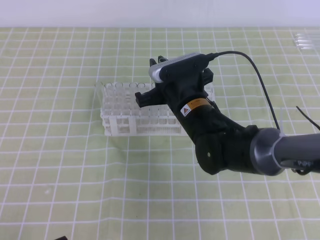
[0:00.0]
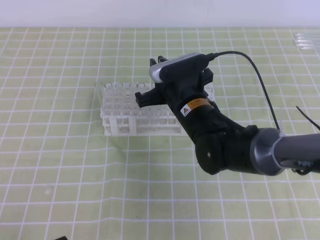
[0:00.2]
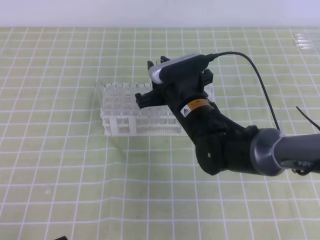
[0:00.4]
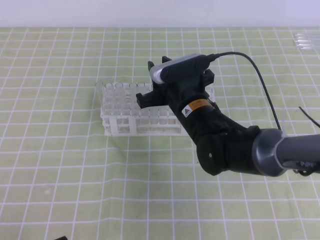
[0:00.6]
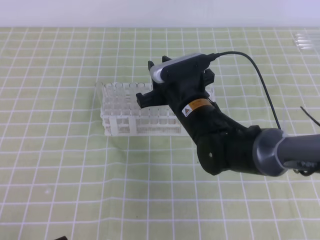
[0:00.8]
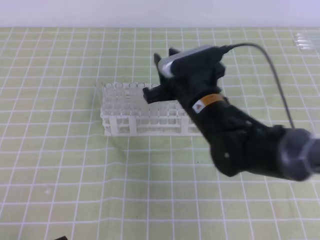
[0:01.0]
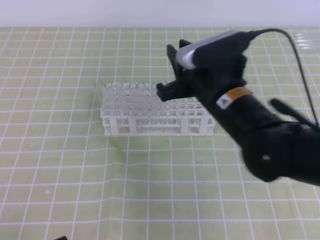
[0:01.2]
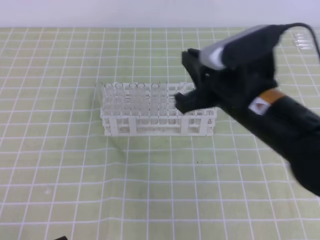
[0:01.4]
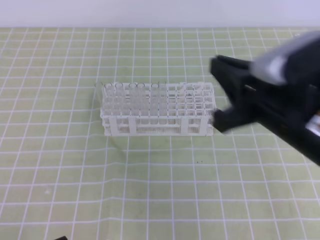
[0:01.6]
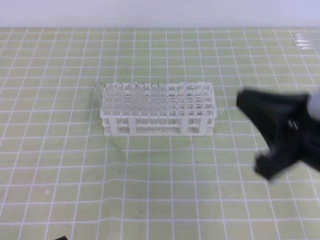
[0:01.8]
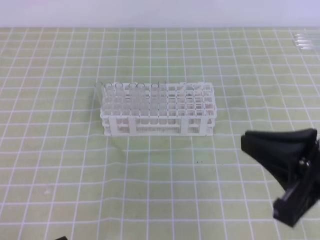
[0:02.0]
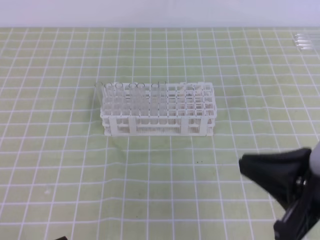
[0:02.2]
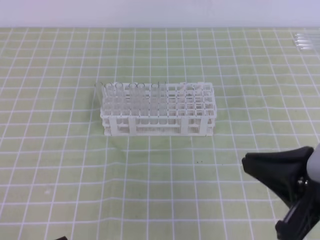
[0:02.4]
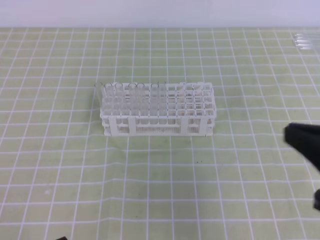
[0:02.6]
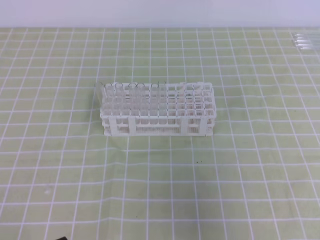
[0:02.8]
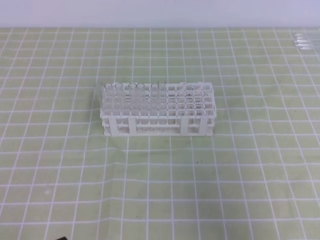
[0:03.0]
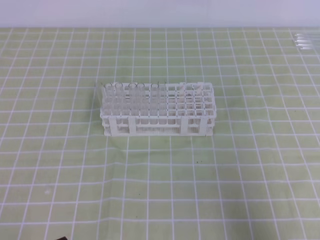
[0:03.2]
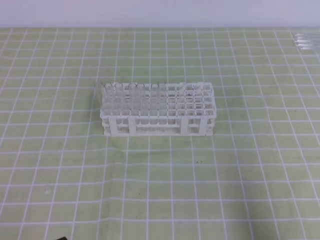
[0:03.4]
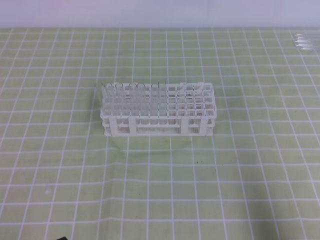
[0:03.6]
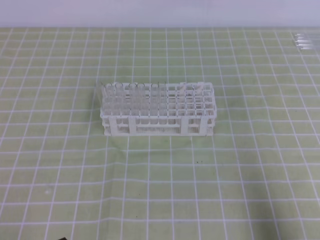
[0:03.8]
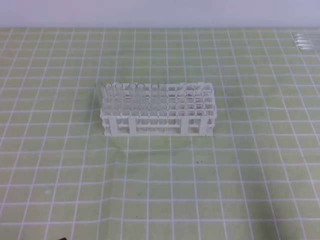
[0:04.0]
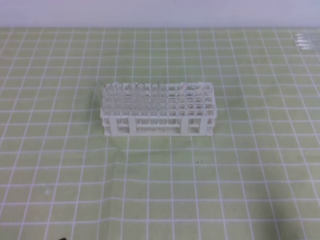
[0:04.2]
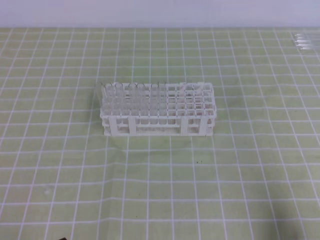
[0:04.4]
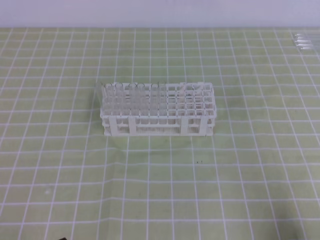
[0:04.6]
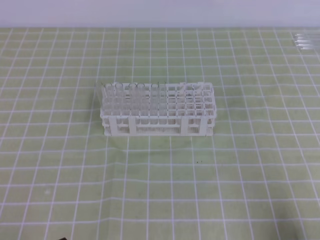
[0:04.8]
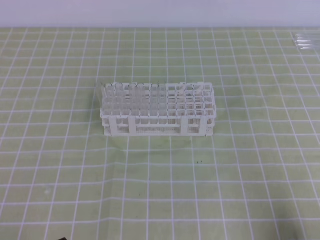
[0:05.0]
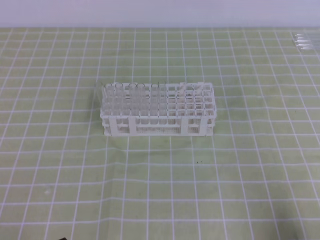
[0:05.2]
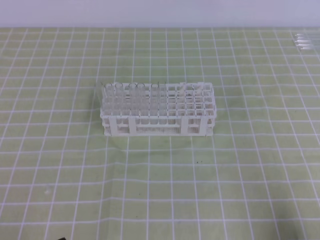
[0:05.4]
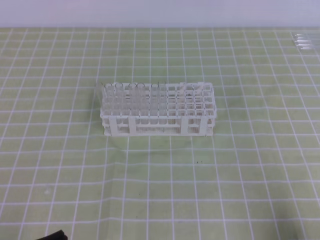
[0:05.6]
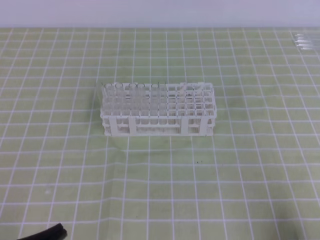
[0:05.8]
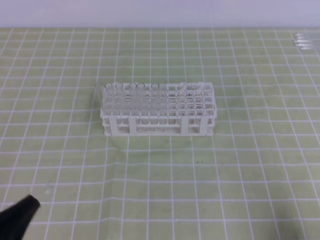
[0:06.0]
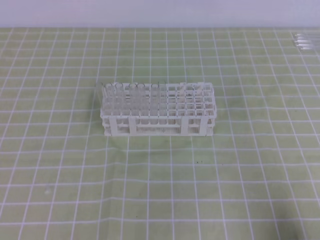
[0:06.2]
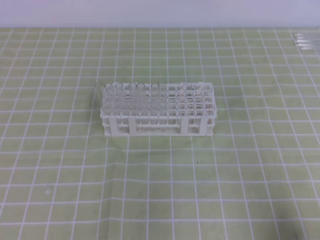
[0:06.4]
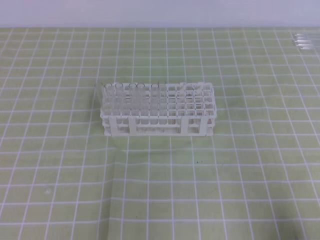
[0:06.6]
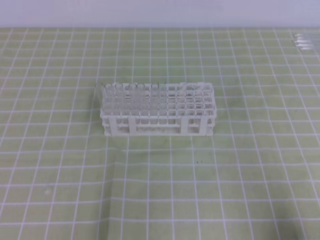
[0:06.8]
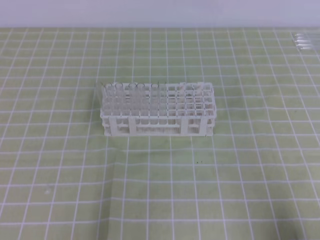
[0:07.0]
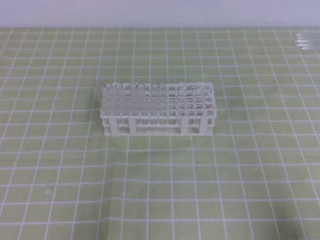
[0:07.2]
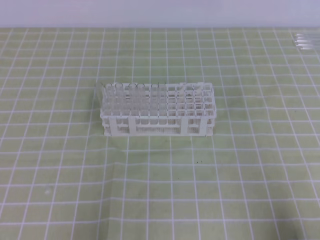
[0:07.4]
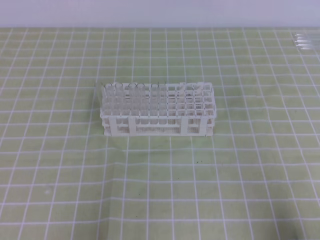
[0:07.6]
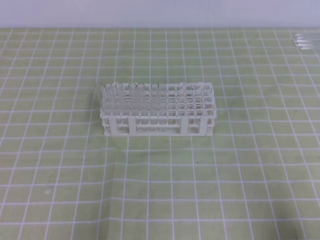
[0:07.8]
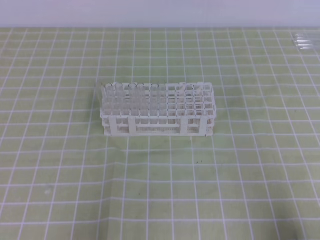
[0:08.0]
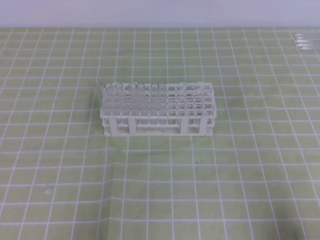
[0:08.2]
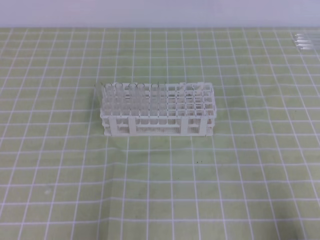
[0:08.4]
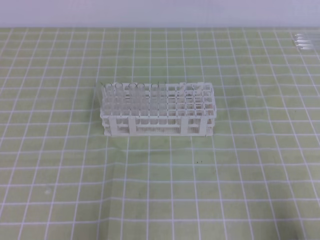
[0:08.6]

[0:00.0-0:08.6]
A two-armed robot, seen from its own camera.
0:00.0 to 0:01.4: The right gripper is displaced upward, backward and to the right by about 15 cm.
0:01.4 to 0:02.8: The right gripper moves to the right and backward, about 20 cm.
0:02.8 to 0:04.4: The right gripper moves downward, approximately 15 cm.
0:05.8 to 0:07.2: The left gripper ends up roughly 5 cm from where it was.
0:07.2 to 0:08.6: Both grippers stay about where they are.

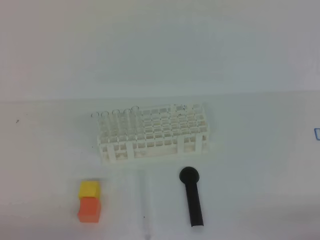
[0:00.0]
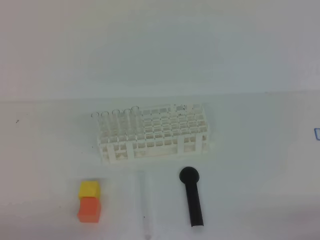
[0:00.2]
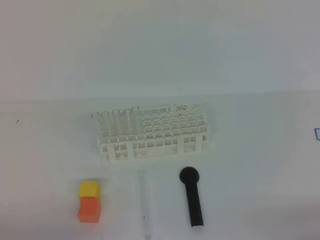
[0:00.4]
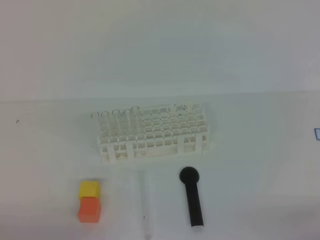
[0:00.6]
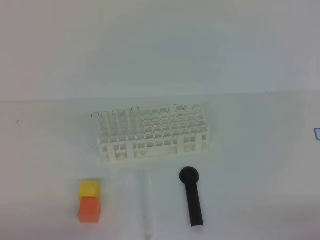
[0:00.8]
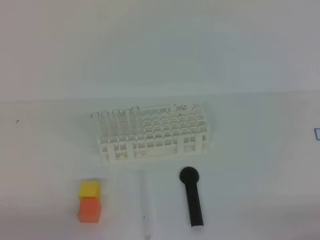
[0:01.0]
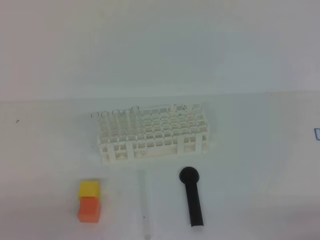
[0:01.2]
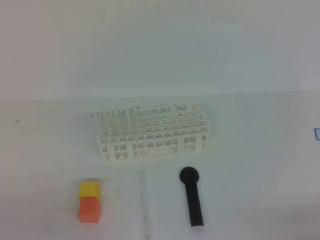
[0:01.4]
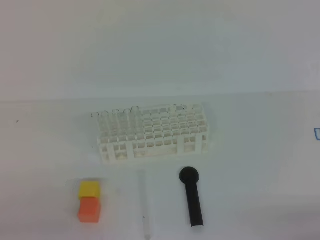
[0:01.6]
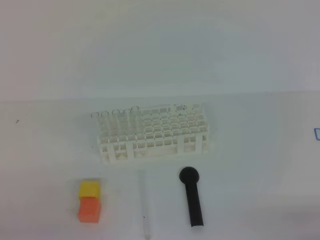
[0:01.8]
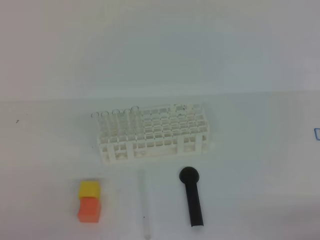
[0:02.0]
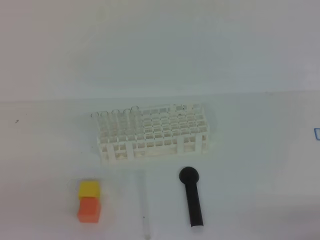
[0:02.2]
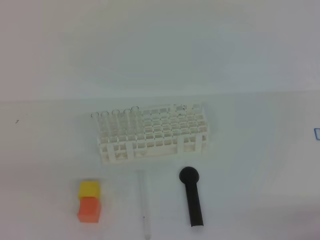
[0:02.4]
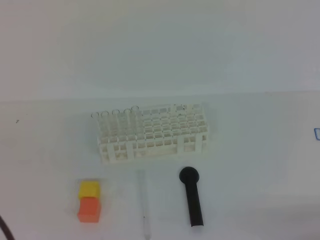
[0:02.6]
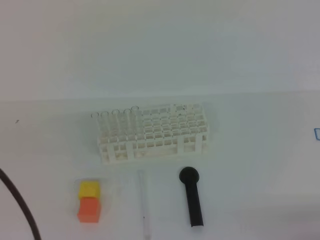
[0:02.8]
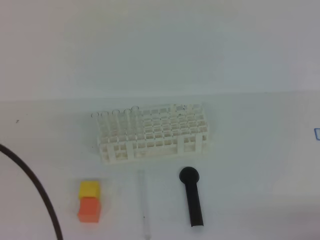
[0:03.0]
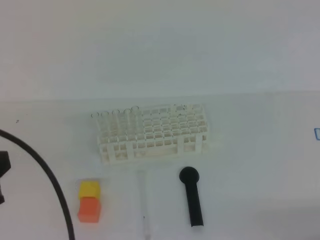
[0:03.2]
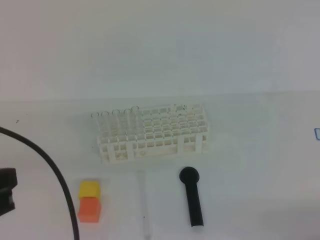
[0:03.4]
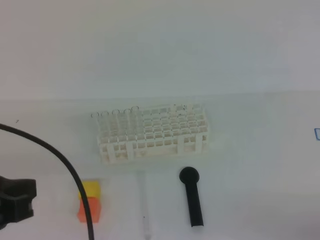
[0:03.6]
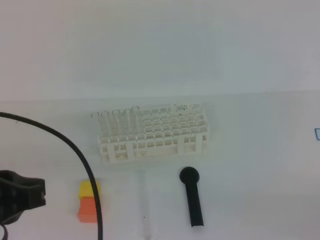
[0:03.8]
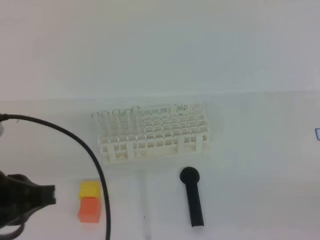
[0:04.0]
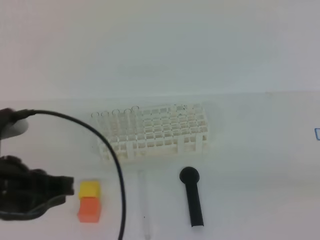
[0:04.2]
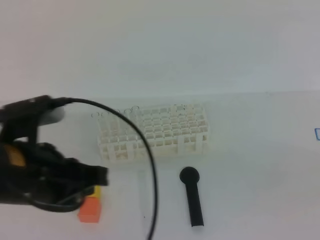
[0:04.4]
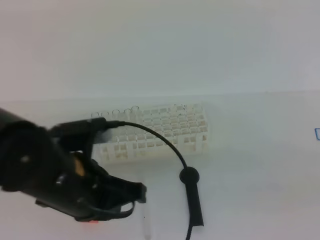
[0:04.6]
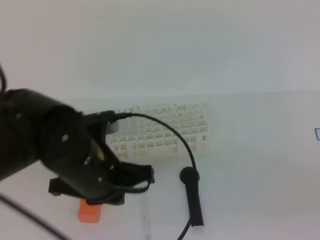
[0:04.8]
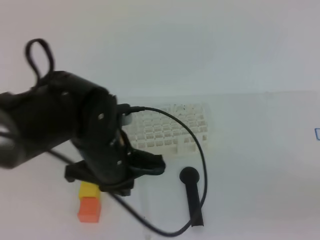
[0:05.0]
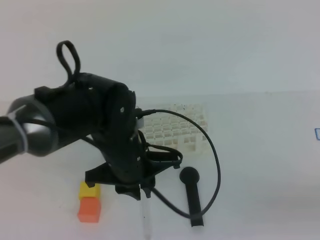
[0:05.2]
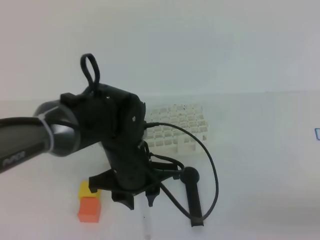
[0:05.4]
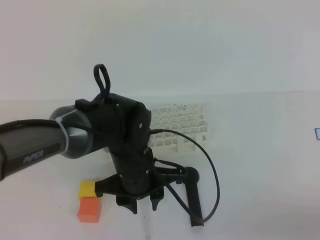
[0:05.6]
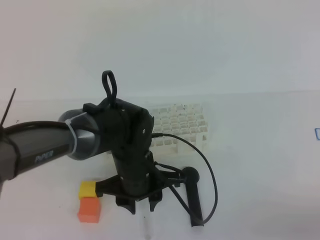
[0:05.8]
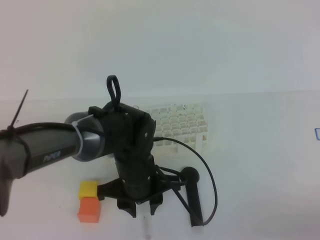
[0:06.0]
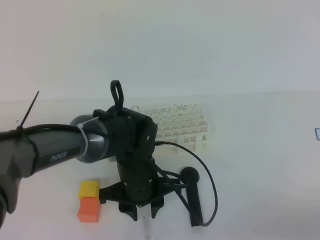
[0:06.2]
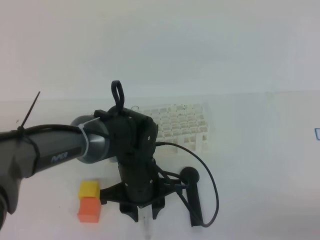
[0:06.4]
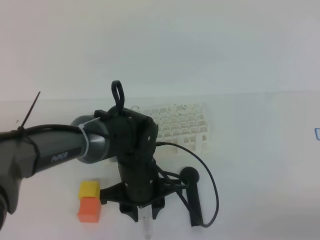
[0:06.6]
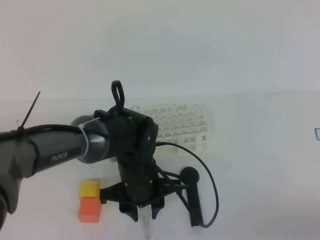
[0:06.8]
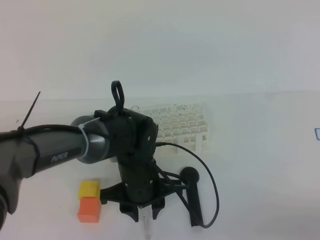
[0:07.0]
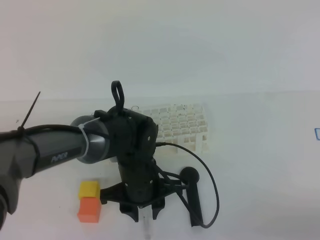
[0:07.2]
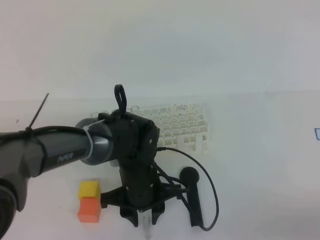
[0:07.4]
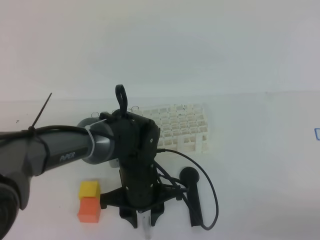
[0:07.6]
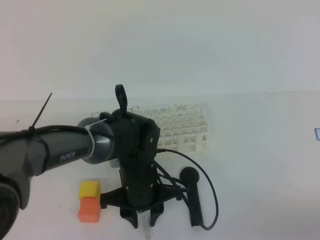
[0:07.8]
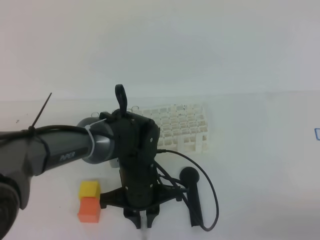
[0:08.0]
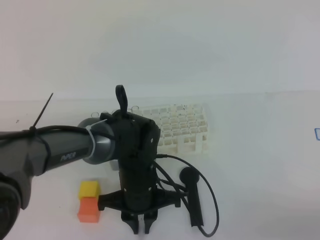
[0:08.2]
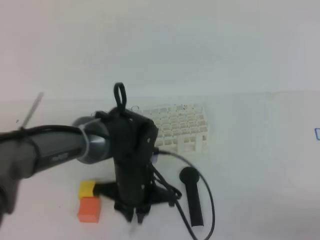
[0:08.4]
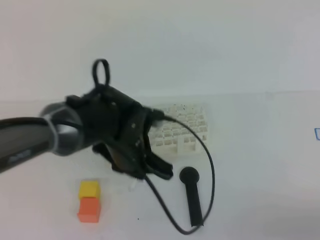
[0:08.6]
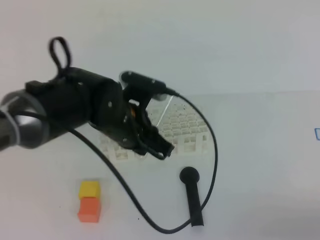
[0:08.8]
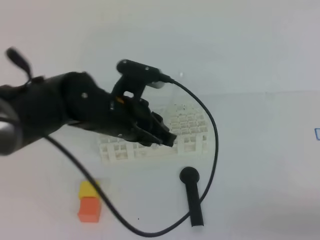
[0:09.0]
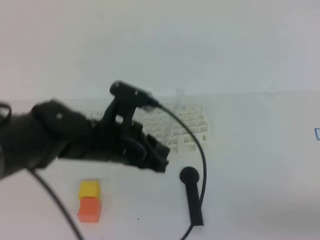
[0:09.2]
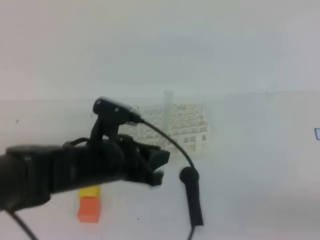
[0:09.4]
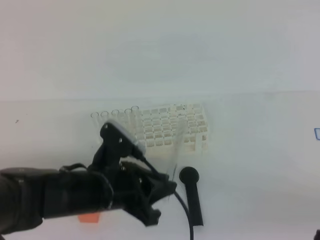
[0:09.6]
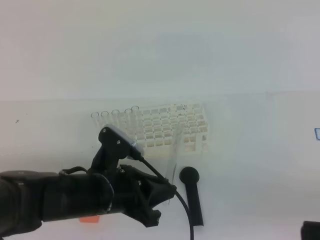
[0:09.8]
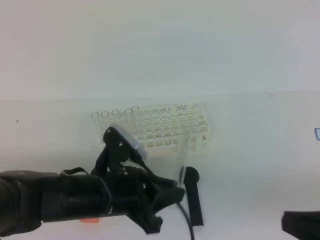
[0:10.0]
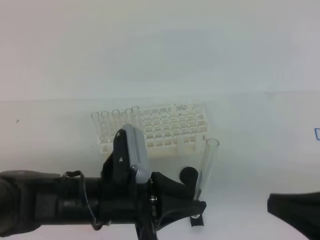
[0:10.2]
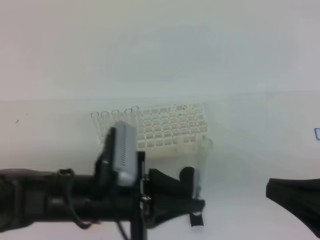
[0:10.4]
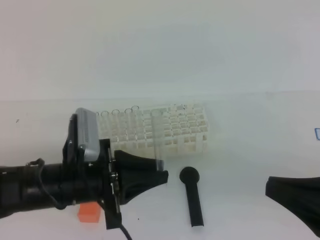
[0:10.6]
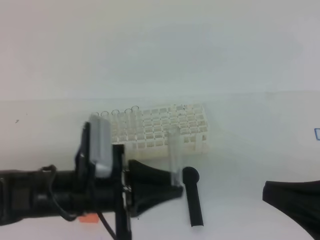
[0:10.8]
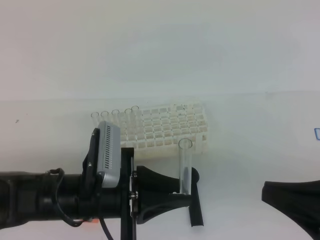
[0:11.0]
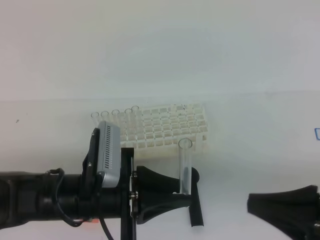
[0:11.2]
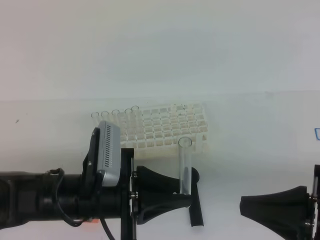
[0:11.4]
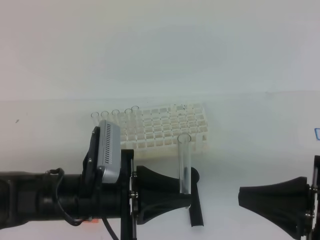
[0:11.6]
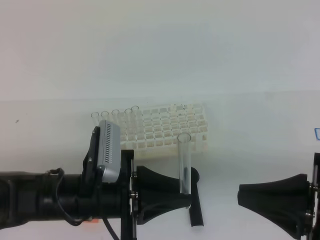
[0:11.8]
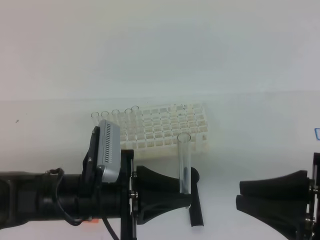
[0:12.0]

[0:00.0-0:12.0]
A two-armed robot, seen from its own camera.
0:01.6 to 0:03.0: The left gripper is displaced upward by approximately 15 cm.
0:03.0 to 0:04.4: The right gripper goes roughly 10 cm upward. The left gripper goes about 15 cm forward, to the right and downward.
0:04.4 to 0:06.0: The right gripper travels to the left by roughly 5 cm. The left gripper is displaced to the right, downward and forward by about 20 cm, and opens.
0:06.0 to 0:07.6: The grippers stay close to where they were, moving slightly.
0:07.6 to 0:09.0: The left gripper heads upward, covering some 10 cm, and closes its fingers.
0:09.0 to 0:10.4: The left gripper travels backward by roughly 10 cm. Meanwhile the right gripper is displaced forward by approximately 5 cm.
0:10.4 to 0:12.0: The grippers stay close to where they were, moving slightly.

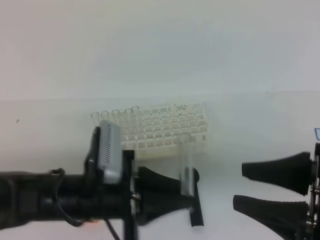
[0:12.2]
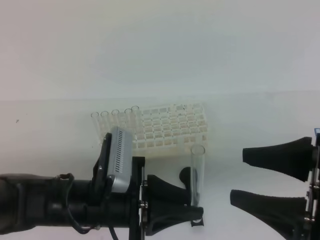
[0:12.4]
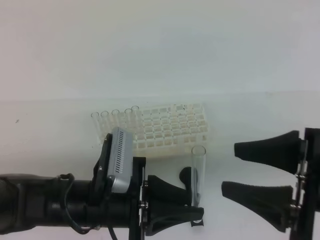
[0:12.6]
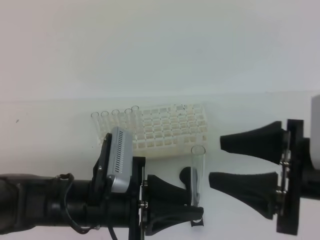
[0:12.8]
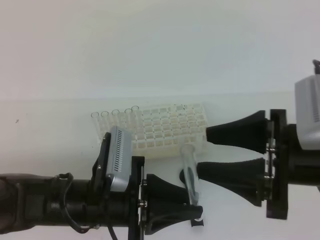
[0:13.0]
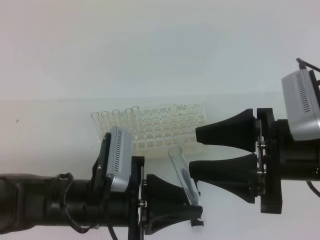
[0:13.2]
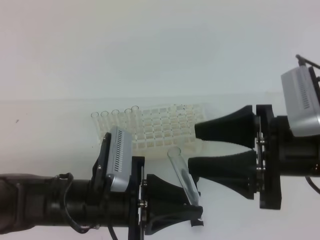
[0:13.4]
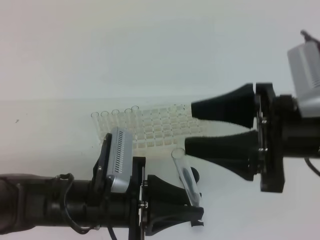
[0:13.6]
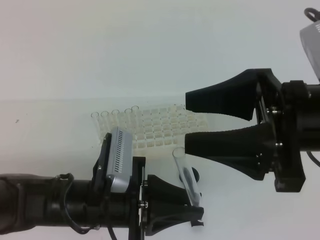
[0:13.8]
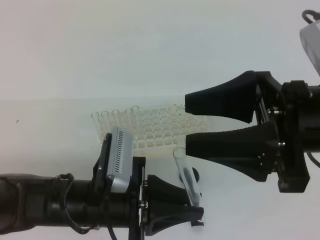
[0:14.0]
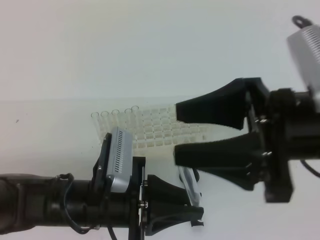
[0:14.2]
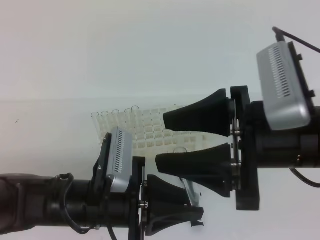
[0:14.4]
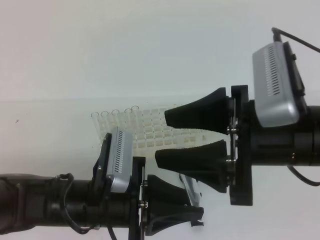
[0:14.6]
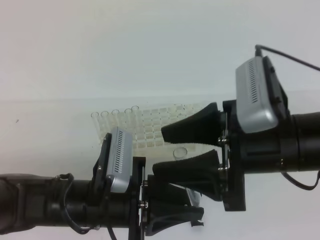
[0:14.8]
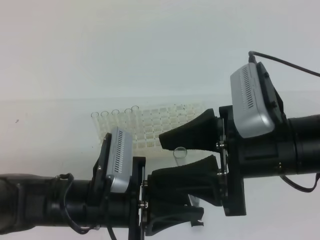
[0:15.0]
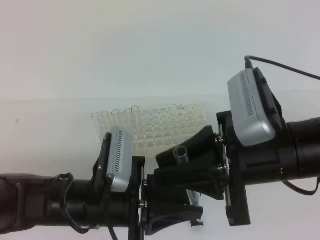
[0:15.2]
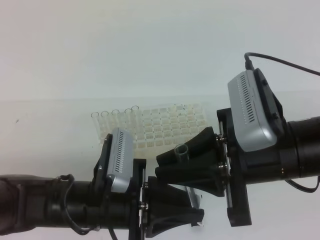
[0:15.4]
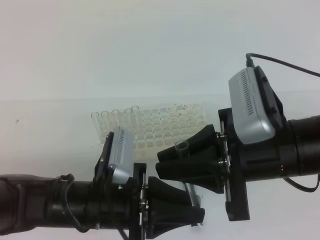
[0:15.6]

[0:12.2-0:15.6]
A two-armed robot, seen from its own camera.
0:12.2 to 0:13.8: The right gripper moves forward and upward, some 10 cm, and opens its fingers.
0:13.8 to 0:15.6: The right gripper closes up.
